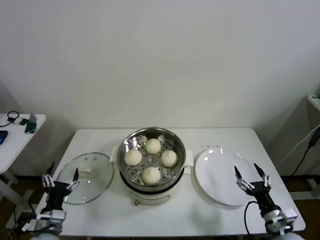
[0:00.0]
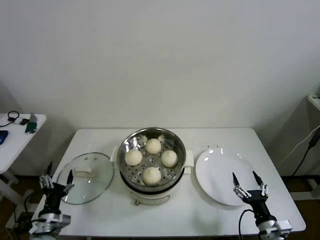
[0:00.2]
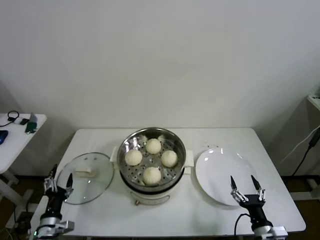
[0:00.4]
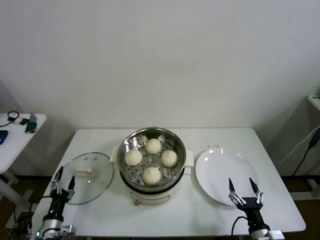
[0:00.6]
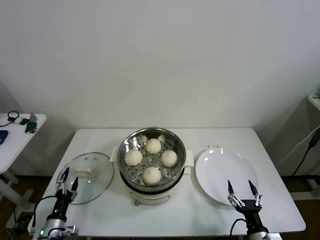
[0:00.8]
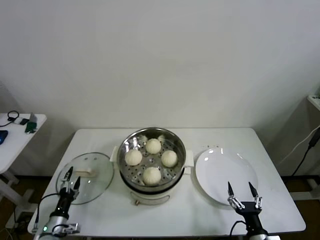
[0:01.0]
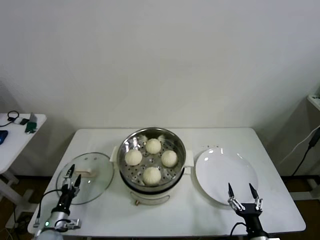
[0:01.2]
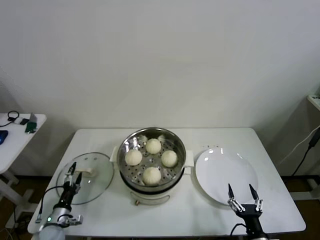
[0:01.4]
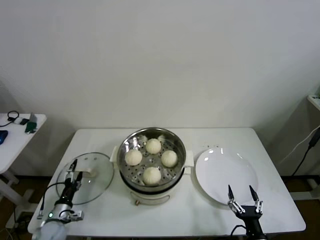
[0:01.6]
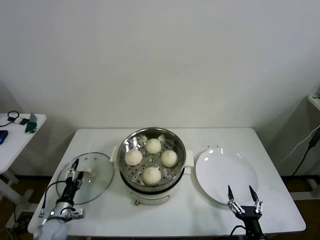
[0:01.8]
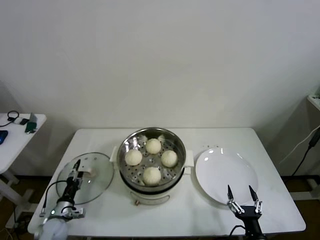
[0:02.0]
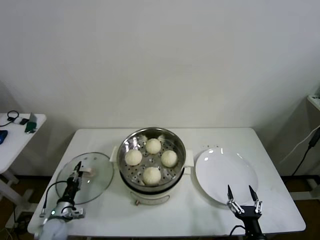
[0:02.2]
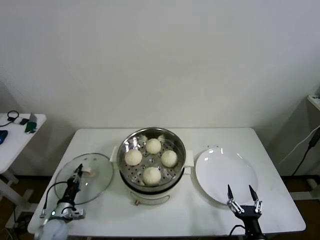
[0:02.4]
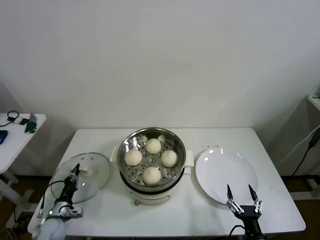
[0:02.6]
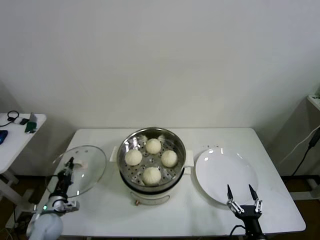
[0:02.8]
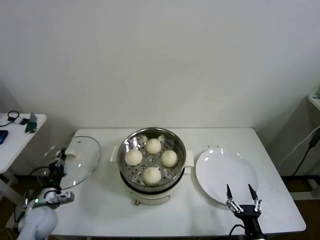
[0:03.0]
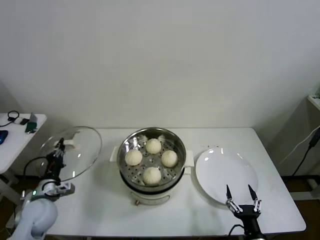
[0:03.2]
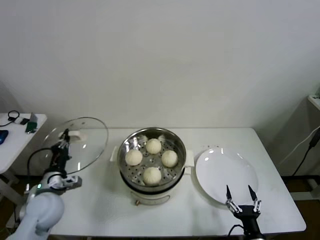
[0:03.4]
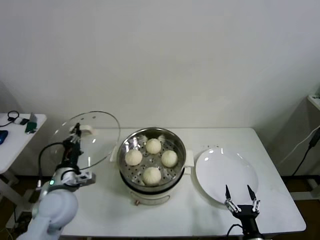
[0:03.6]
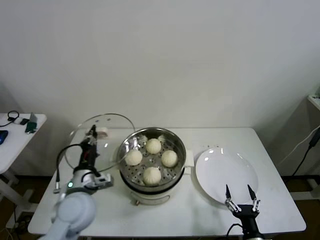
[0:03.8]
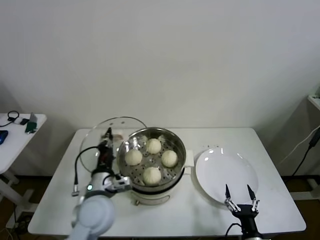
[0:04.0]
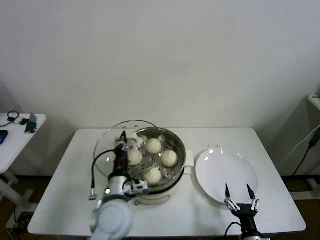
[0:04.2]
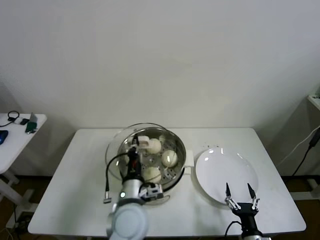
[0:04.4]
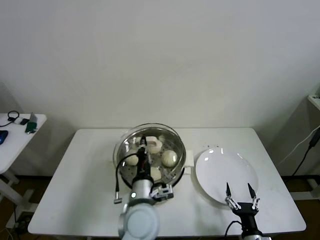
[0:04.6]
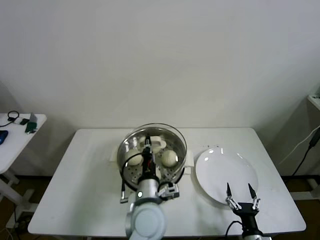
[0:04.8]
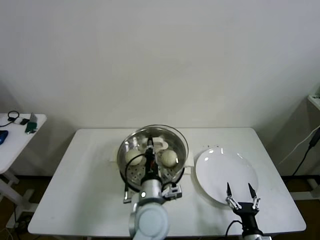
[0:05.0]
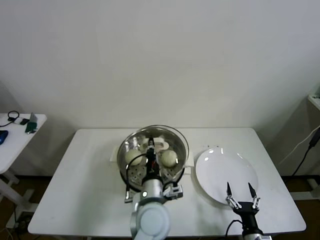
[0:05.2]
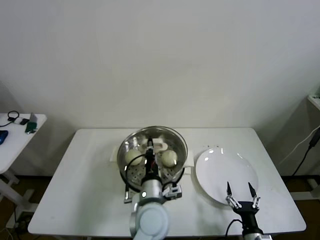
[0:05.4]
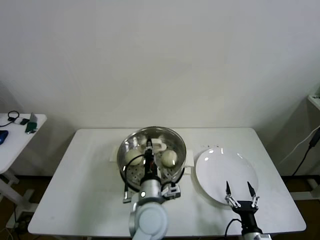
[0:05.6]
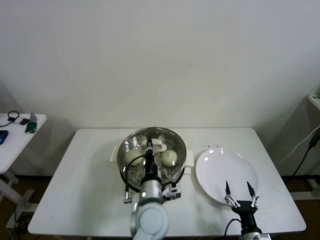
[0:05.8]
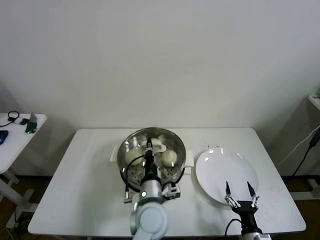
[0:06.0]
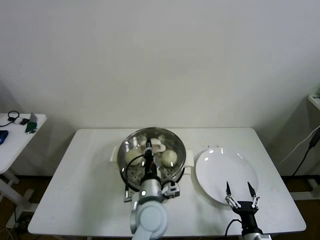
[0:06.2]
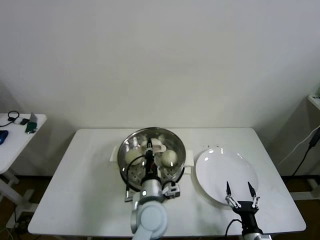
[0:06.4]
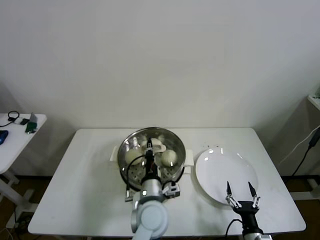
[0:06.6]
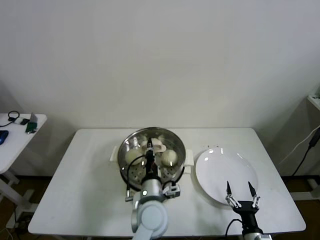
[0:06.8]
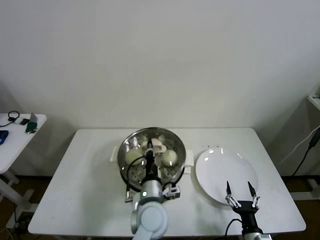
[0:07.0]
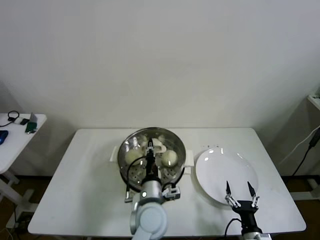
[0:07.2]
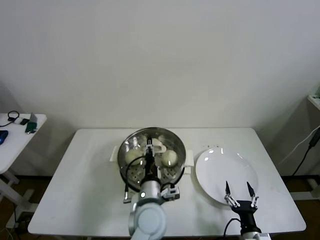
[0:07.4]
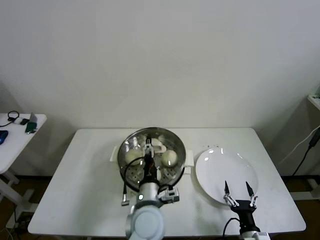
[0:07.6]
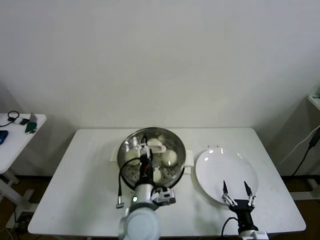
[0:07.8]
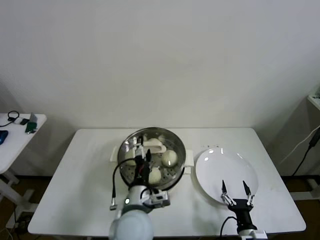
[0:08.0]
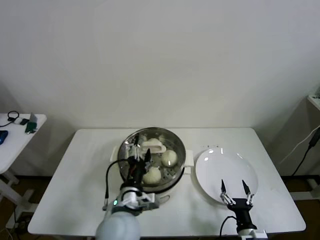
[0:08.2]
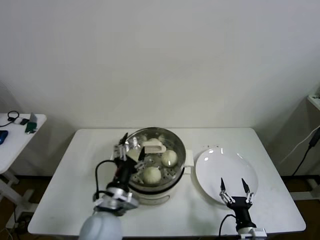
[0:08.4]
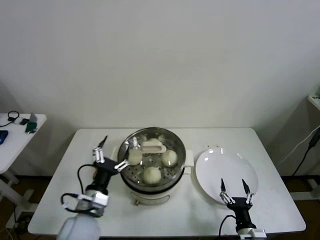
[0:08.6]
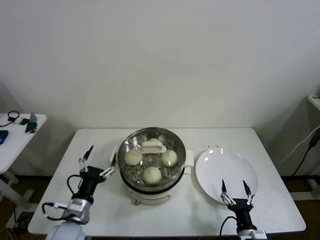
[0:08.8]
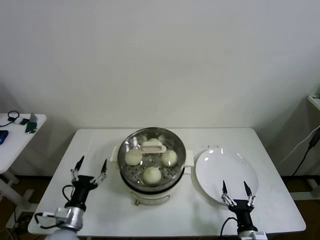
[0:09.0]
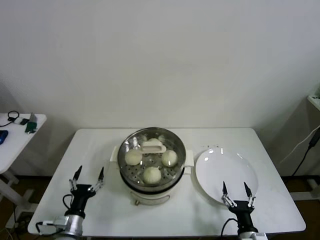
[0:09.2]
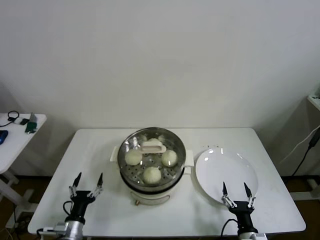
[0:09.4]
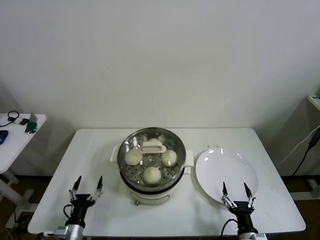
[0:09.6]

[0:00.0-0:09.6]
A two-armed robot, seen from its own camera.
Step, 0:00.0 to 0:02.4: Grasp the pot lid with left gripper.
Step, 0:02.6 to 0:07.4: Place the pot lid on the steamer with left gripper.
0:00.0 to 0:01.6: The left gripper moves downward, to the left and forward, about 15 cm. Meanwhile the right gripper shifts roughly 10 cm backward, to the left and downward.
0:01.6 to 0:03.2: The left gripper shifts roughly 15 cm upward, and closes its fingers.
0:03.2 to 0:04.8: The left gripper is displaced to the right by some 35 cm.
0:04.8 to 0:06.4: There are only small adjustments of the grippers.
0:06.4 to 0:08.0: The left gripper changes place by roughly 5 cm, and opens its fingers.
0:08.0 to 0:09.6: The left gripper heads to the left and downward, covering some 30 cm.

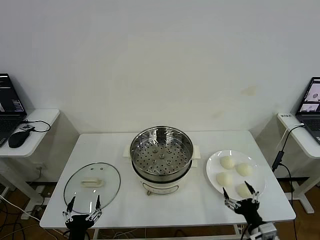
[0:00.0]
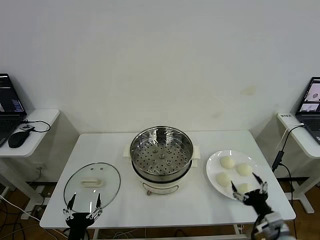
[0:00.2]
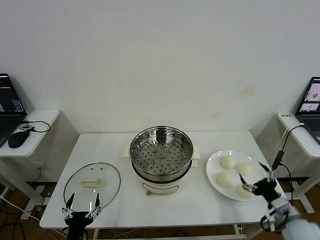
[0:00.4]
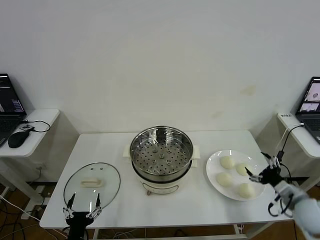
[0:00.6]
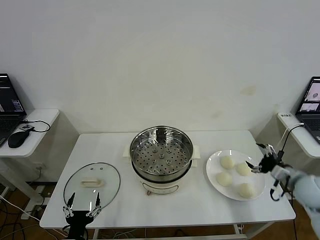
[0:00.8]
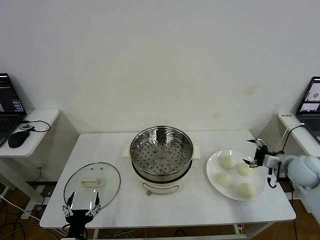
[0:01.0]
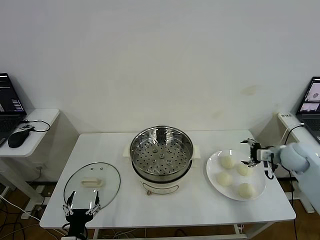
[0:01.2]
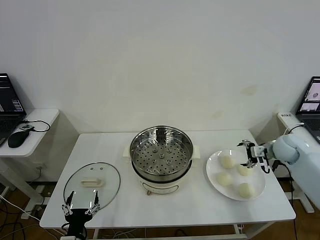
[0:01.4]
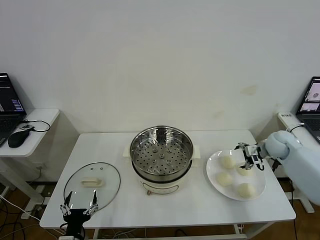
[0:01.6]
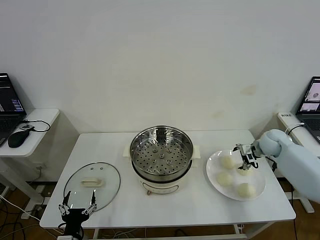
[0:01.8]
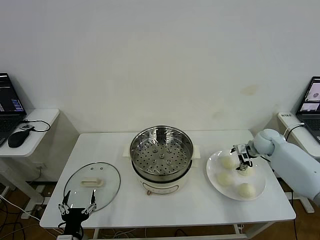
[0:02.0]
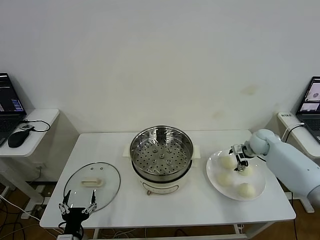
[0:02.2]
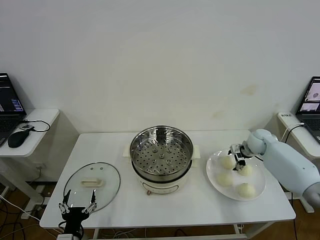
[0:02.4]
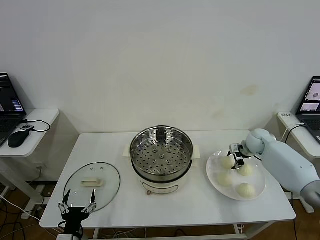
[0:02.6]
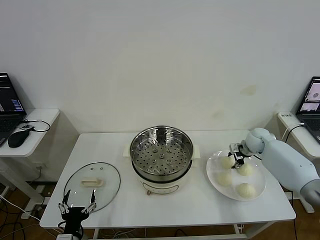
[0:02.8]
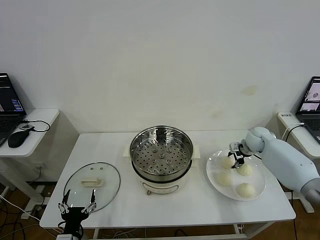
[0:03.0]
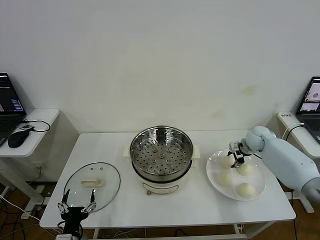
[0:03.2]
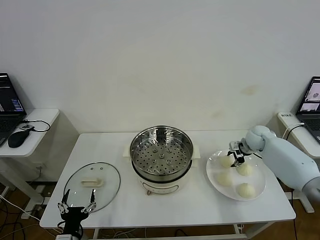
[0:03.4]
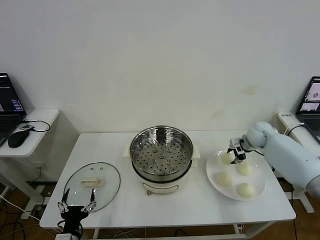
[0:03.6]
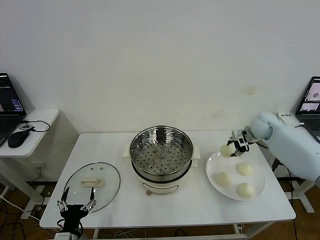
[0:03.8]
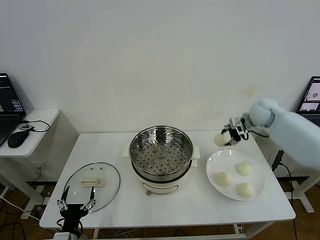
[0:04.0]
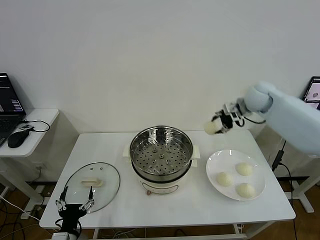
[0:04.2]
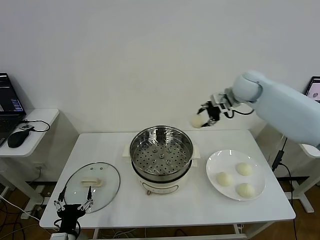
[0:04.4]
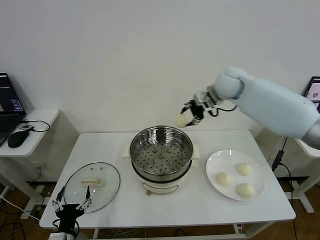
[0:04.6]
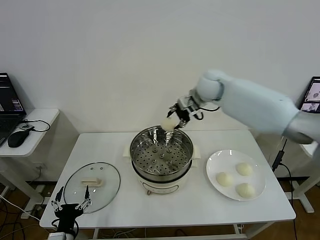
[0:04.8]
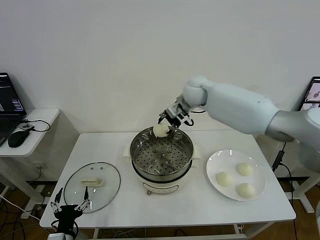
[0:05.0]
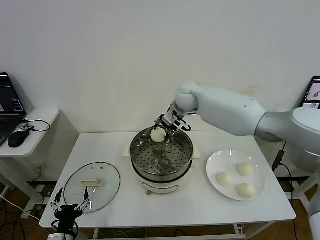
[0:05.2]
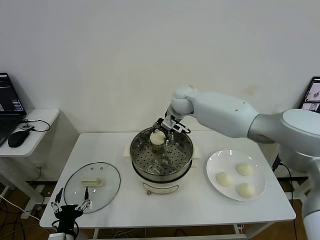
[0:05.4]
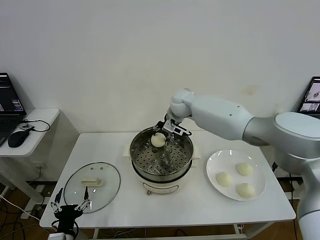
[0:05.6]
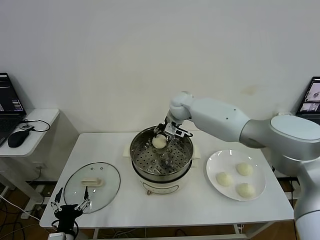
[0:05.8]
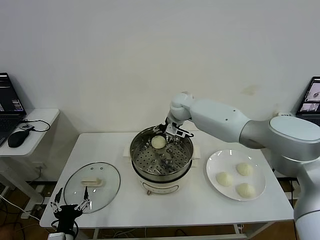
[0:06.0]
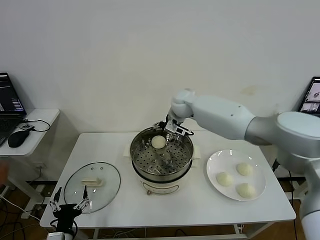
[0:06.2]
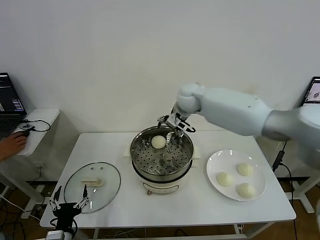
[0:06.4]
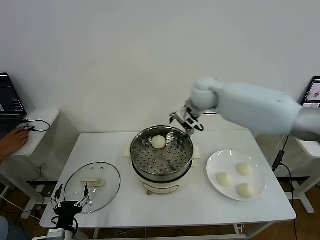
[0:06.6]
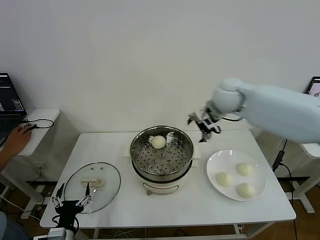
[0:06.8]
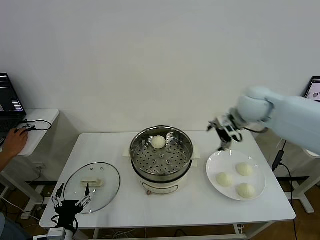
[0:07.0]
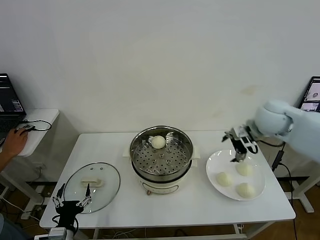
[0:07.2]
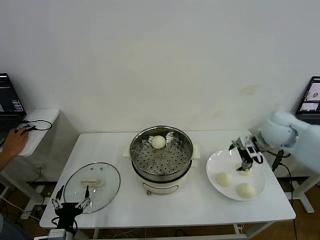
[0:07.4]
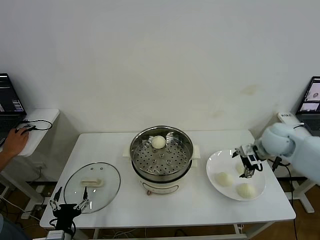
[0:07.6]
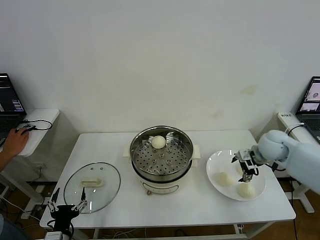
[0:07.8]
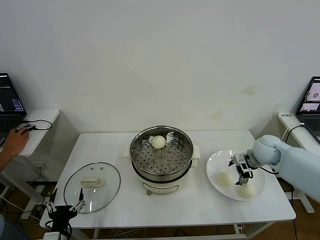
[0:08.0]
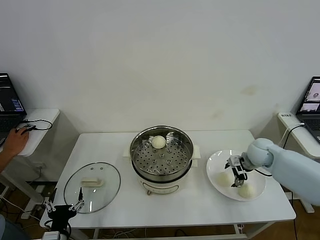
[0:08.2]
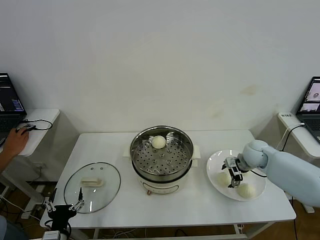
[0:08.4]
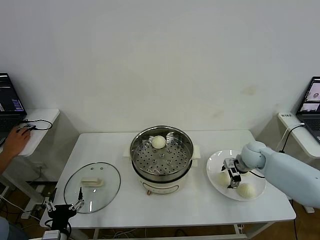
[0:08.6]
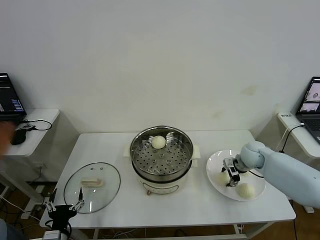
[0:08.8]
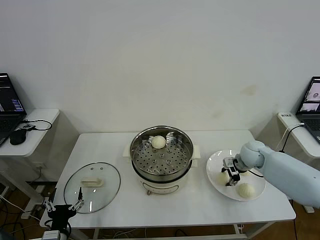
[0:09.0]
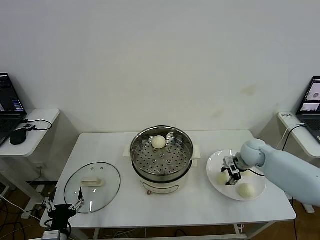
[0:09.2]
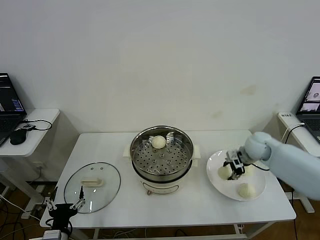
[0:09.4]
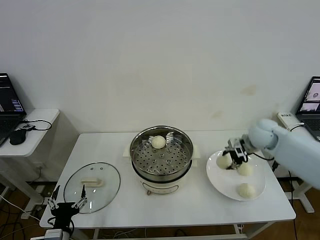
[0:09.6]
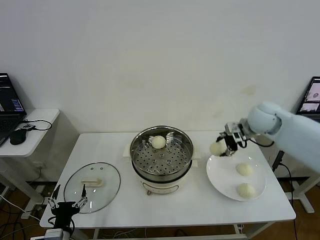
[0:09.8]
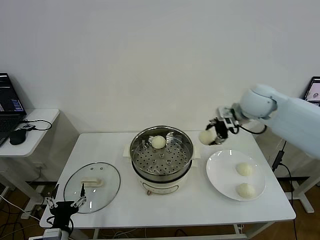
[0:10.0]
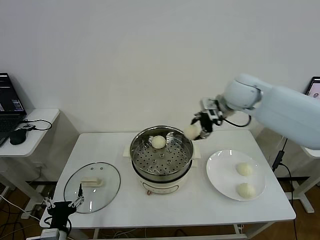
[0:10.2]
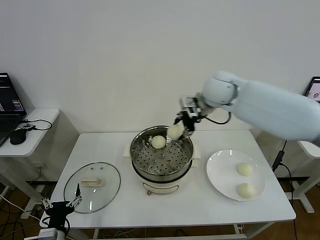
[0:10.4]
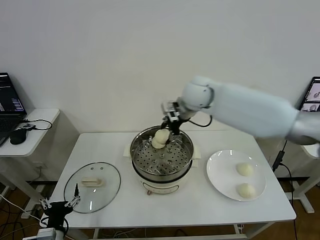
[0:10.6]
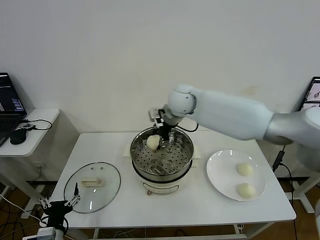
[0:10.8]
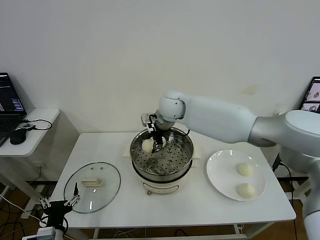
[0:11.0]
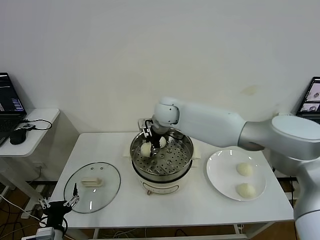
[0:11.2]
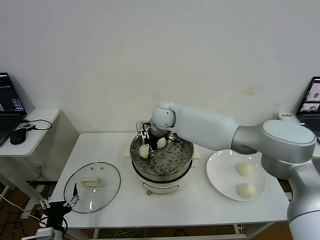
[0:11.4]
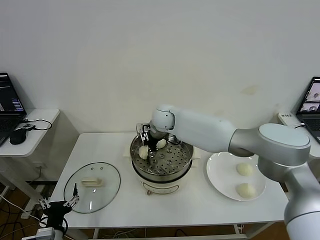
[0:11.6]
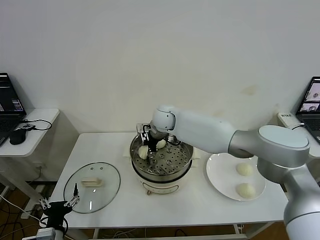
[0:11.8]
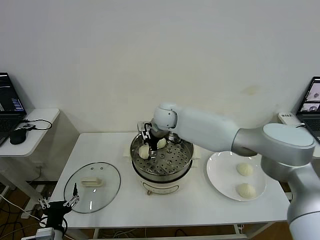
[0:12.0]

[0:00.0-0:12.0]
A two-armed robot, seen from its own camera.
Step, 0:00.0 to 0:02.6: Grasp the baozi in the plate with right gripper.
Step, 0:02.8 to 0:05.8: Place the baozi on the steamer with right gripper.
Step, 0:06.0 to 0:08.6: Grasp the baozi in the plate with right gripper.
Step, 0:08.8 to 0:12.0: Place the baozi on the steamer with right gripper.
0:01.6 to 0:03.0: The right gripper ends up some 5 cm from where it was, and closes up.
0:03.0 to 0:04.4: The right gripper shifts about 25 cm upward and to the left.
0:04.4 to 0:06.0: The right gripper goes about 20 cm to the left and downward, and opens.
0:06.0 to 0:07.6: The right gripper goes approximately 35 cm to the right and backward.
0:07.6 to 0:09.0: The right gripper shifts approximately 10 cm downward, and closes.
0:09.0 to 0:10.4: The right gripper is displaced upward and to the left by some 30 cm.
0:10.4 to 0:12.0: The right gripper moves to the left and downward, approximately 15 cm, and opens its fingers.
